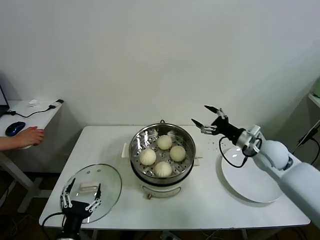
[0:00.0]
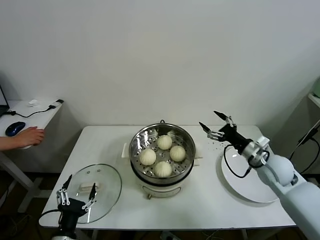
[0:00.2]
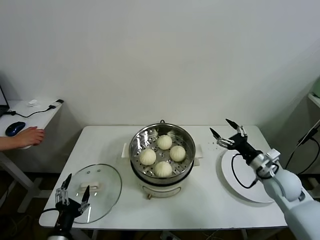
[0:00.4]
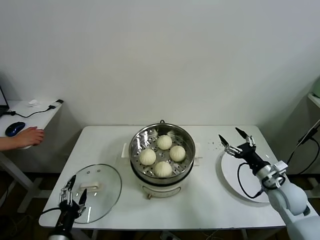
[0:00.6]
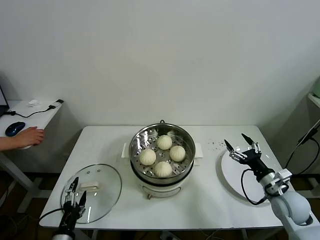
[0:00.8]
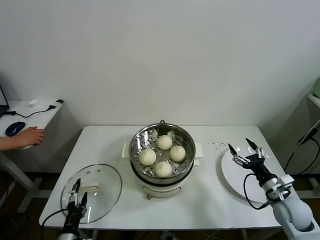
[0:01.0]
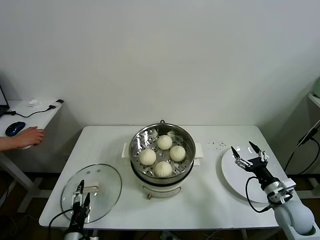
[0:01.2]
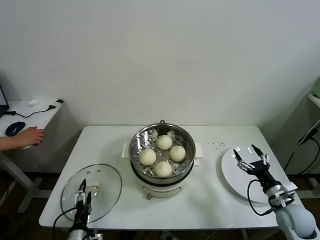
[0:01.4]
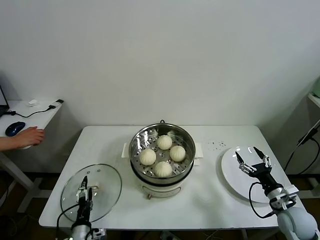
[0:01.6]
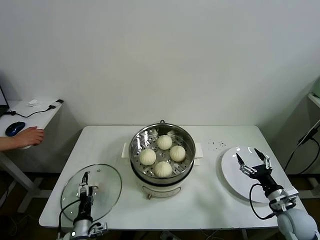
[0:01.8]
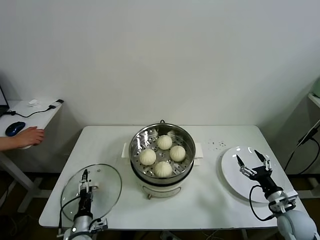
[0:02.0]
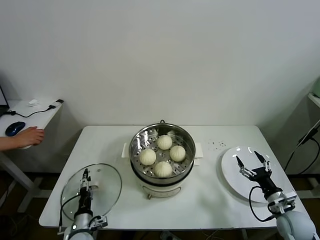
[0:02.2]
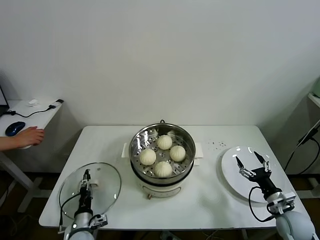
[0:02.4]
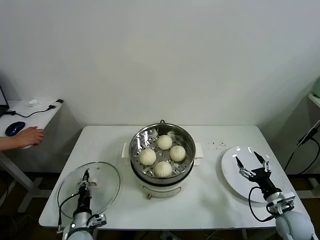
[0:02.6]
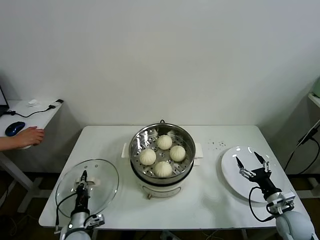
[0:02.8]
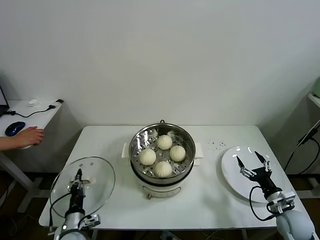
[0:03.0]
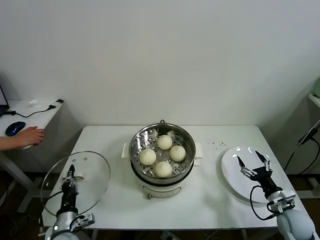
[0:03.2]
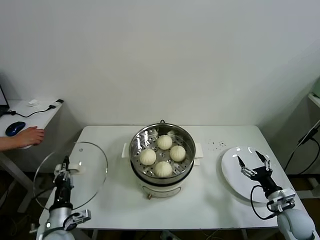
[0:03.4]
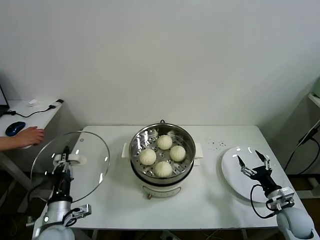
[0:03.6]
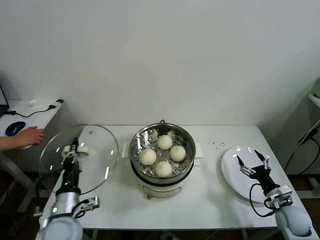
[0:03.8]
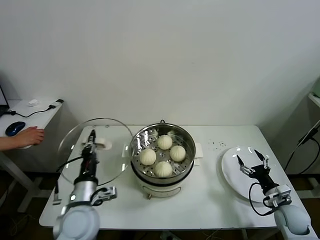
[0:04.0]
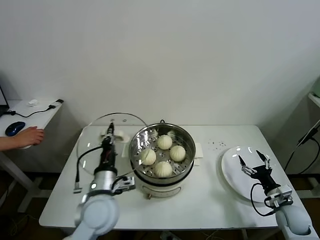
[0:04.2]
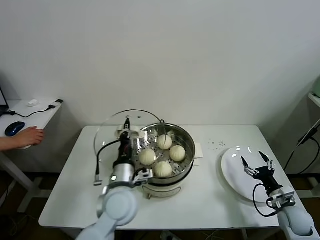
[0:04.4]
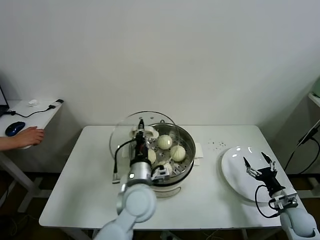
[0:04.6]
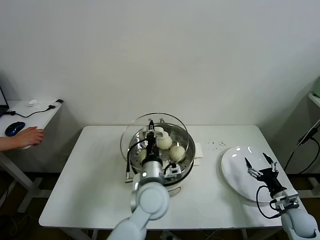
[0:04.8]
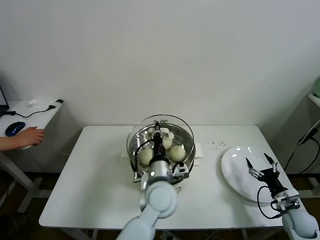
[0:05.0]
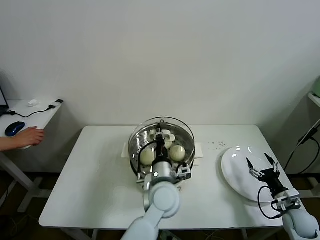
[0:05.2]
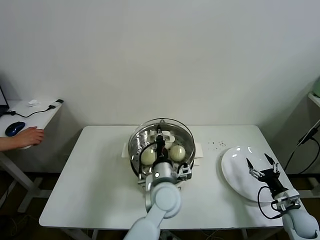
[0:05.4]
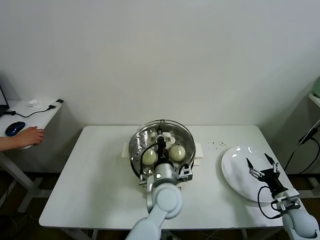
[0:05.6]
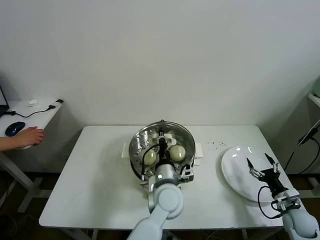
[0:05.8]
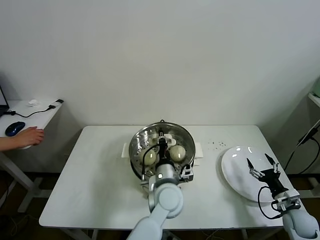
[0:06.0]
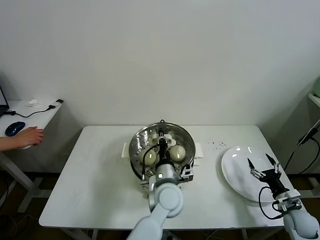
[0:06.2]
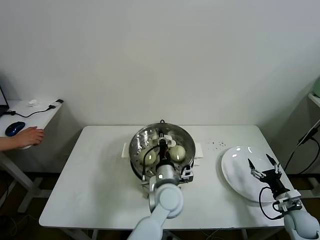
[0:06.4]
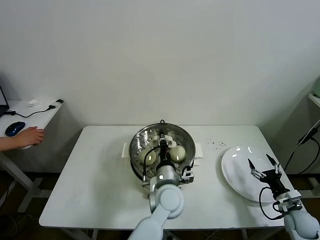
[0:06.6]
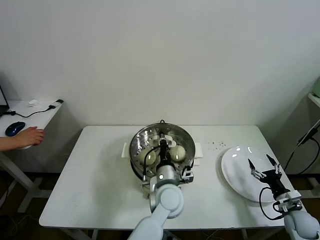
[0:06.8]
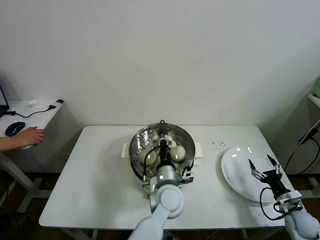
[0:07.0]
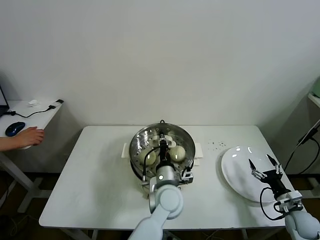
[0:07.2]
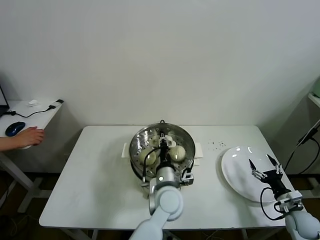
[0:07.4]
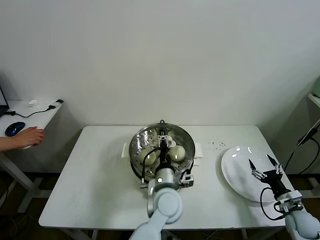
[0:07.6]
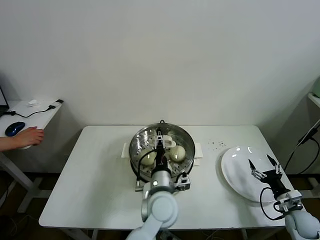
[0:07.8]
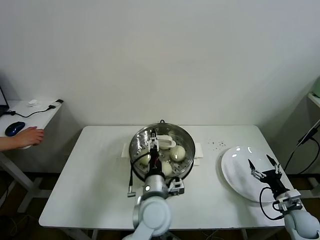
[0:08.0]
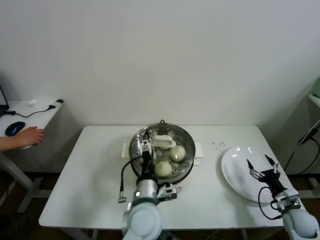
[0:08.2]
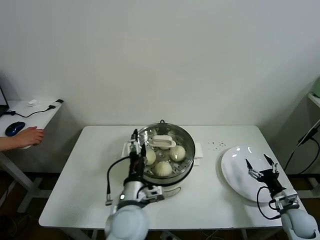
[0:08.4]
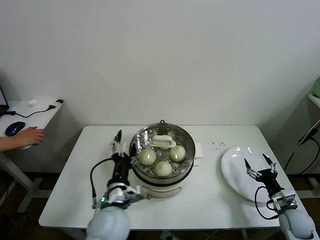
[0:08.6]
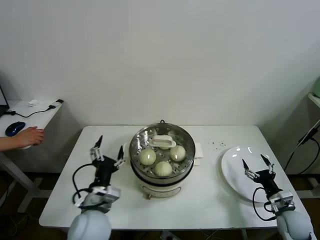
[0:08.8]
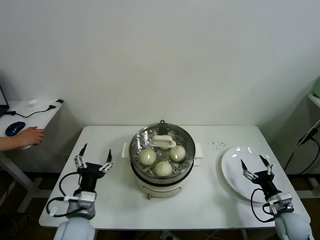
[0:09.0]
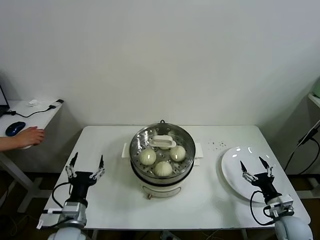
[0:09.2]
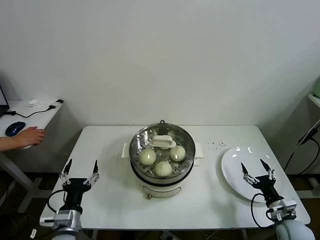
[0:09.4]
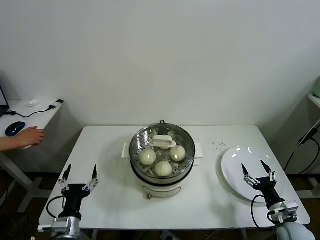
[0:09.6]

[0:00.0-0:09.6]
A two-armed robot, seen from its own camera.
Task of the whole recording: take steamed baozi put them in steamer.
Step, 0:00.0 to 0:02.6: Grasp the pot lid with left gripper.
Step, 0:02.8 to 0:07.8: Place the pot lid on the steamer with left gripper.
0:00.0 to 0:01.6: The left gripper moves downward and forward, some 15 cm. Meanwhile the right gripper moves backward, downward and to the right, some 20 cm.
0:01.6 to 0:03.2: The left gripper shifts by about 5 cm, and closes up.
0:03.2 to 0:04.8: The left gripper shifts roughly 30 cm to the right and upward.
0:04.8 to 0:06.4: The left gripper heads to the right, covering about 5 cm.
0:06.4 to 0:08.0: The left gripper moves about 5 cm, and opens.
0:08.0 to 0:09.6: The left gripper travels to the left by roughly 25 cm. The right gripper heads to the left, covering approximately 5 cm.
